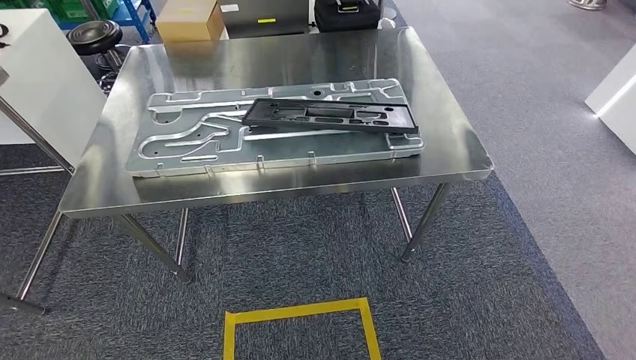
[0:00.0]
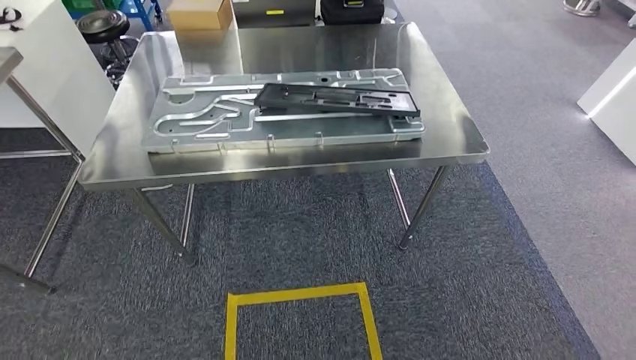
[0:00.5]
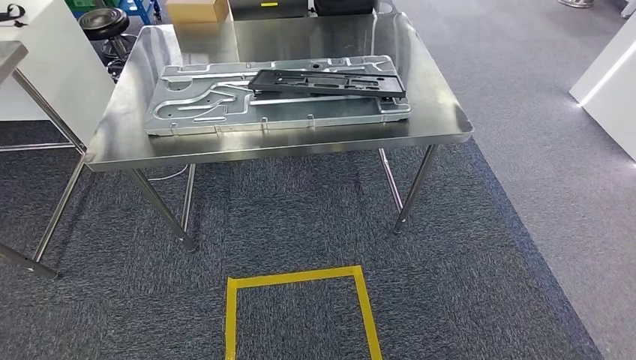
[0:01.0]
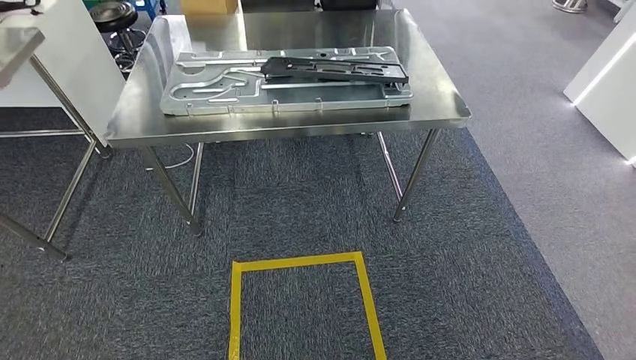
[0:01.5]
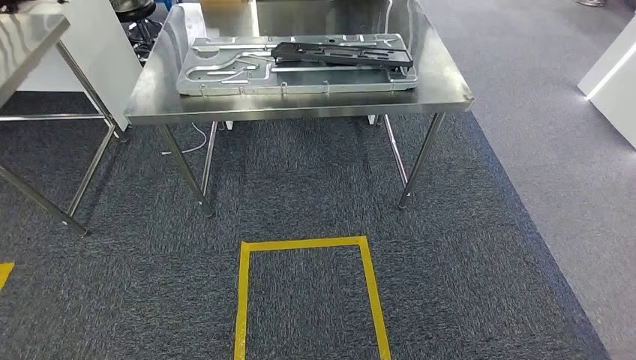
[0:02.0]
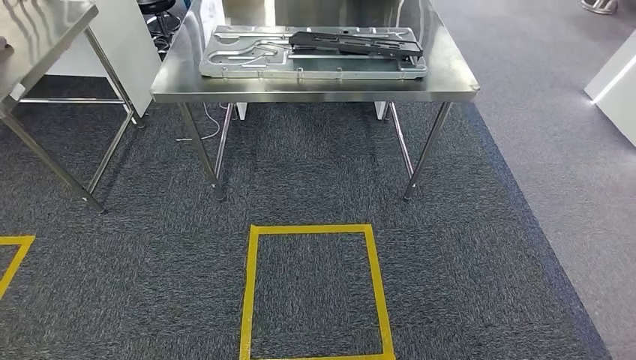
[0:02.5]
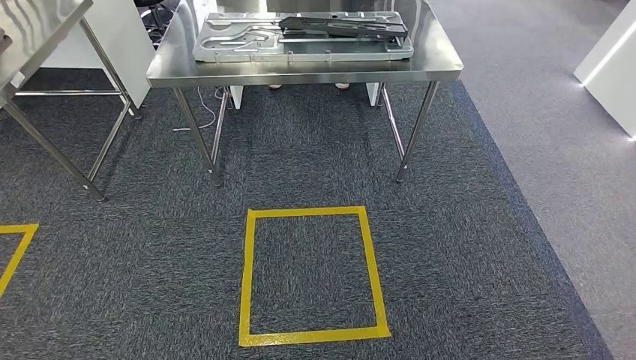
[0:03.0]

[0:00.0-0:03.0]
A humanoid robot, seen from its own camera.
Step, 0:00.0 to 0:03.0: Return to the initial position at the shelf.
